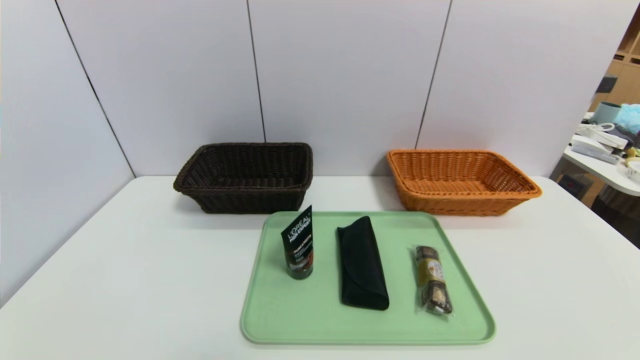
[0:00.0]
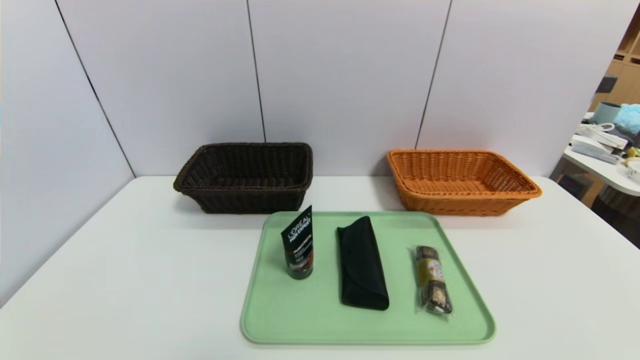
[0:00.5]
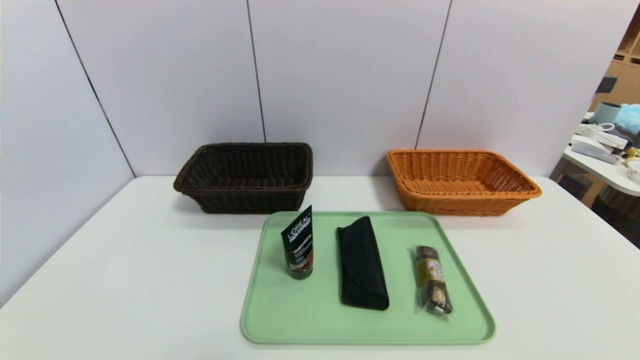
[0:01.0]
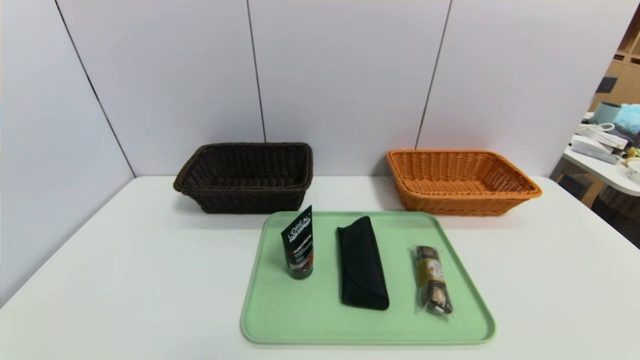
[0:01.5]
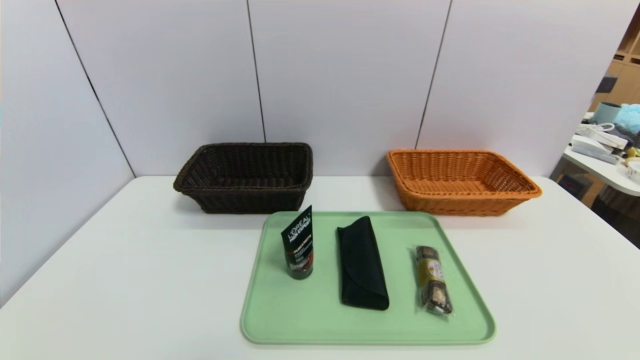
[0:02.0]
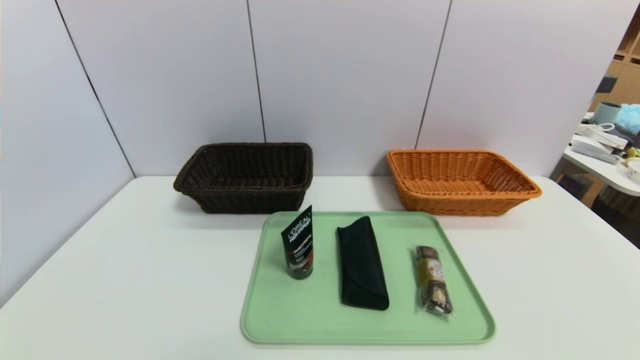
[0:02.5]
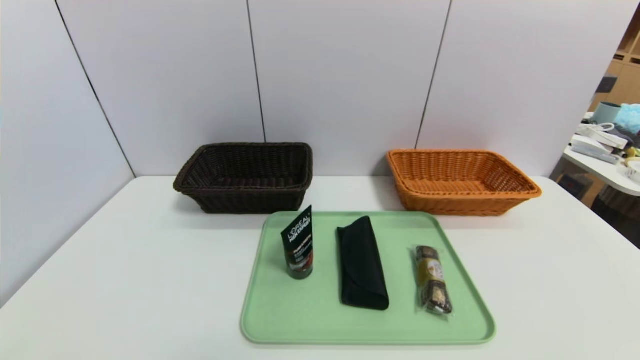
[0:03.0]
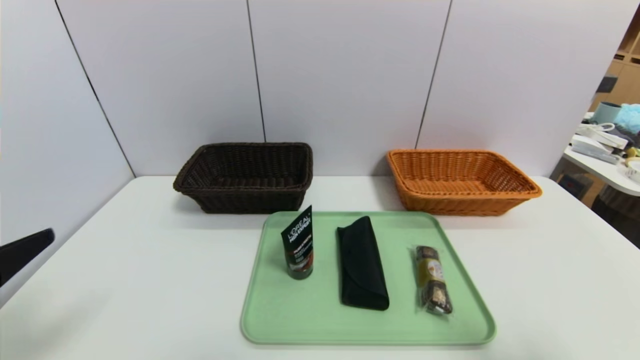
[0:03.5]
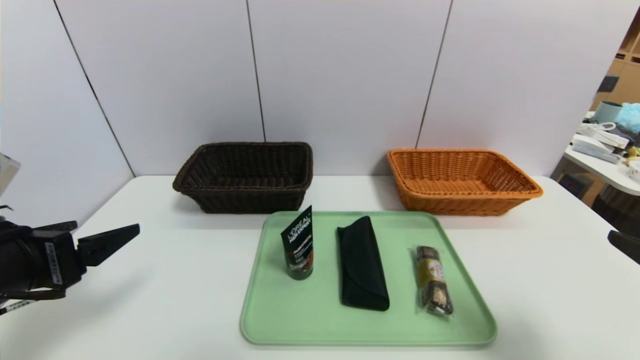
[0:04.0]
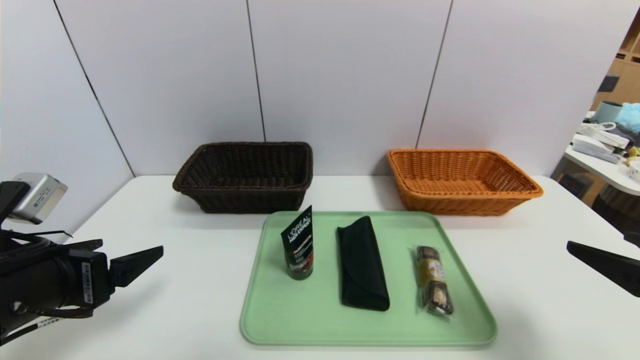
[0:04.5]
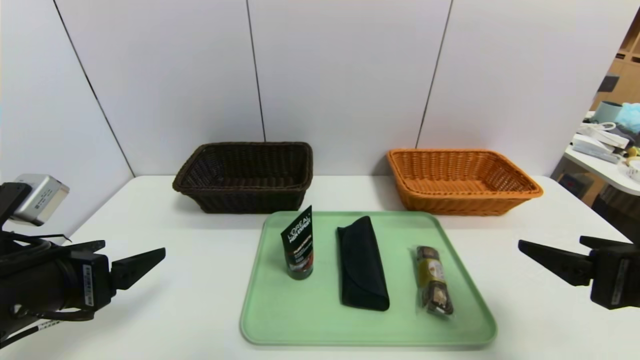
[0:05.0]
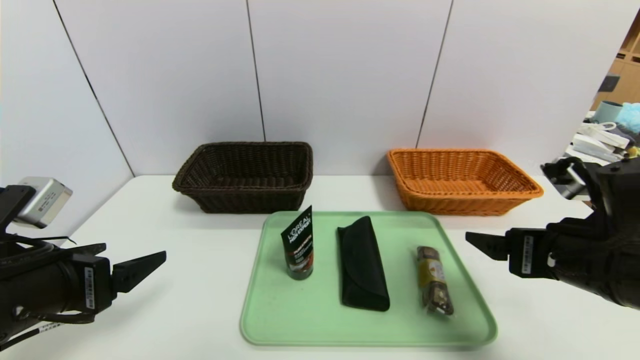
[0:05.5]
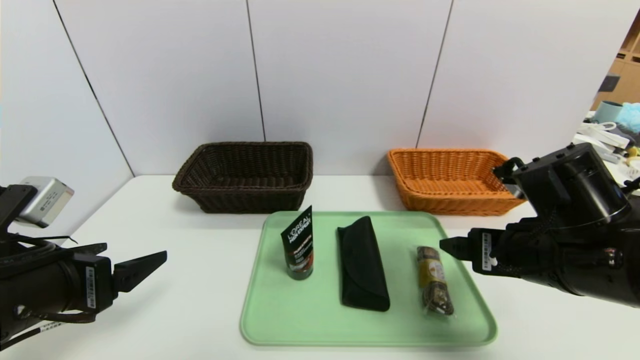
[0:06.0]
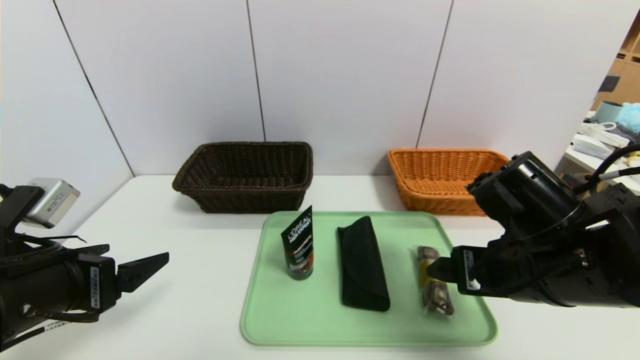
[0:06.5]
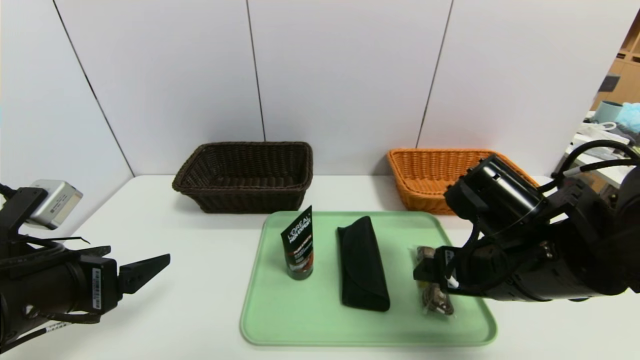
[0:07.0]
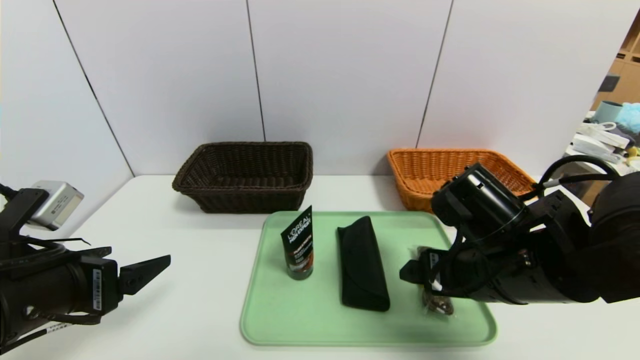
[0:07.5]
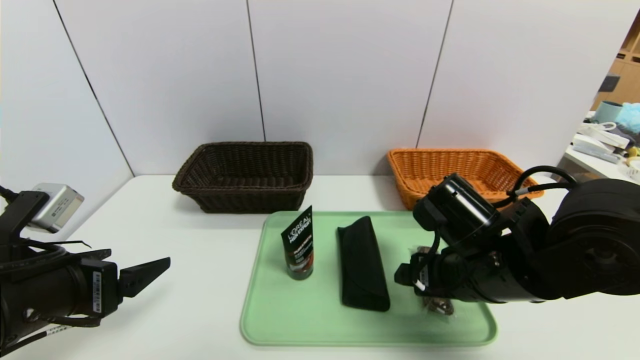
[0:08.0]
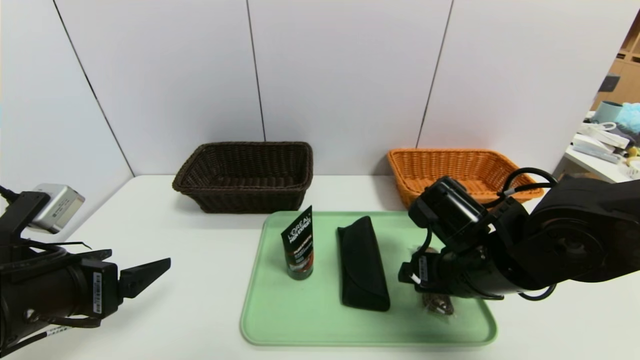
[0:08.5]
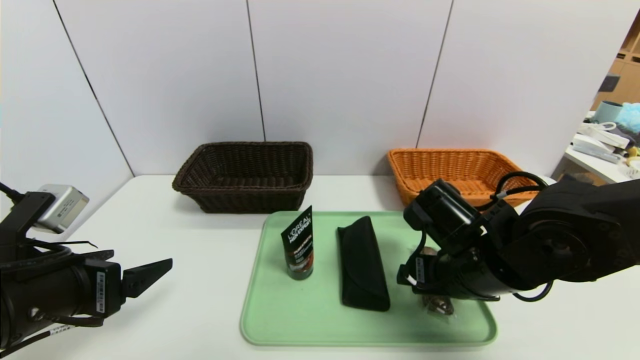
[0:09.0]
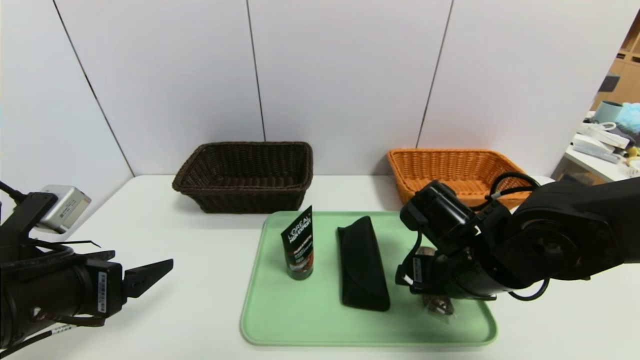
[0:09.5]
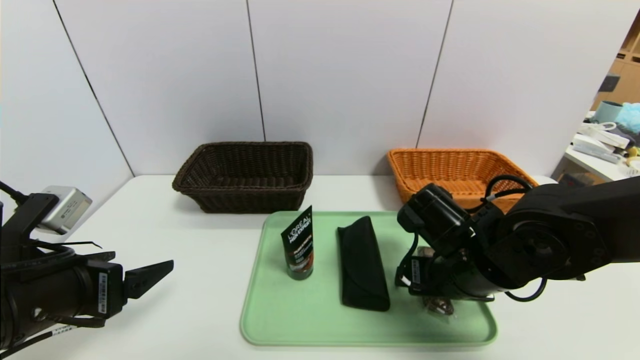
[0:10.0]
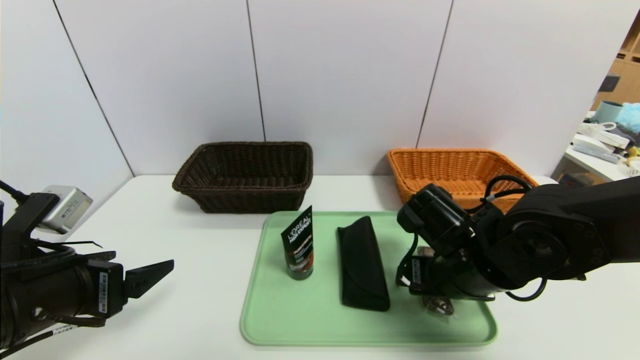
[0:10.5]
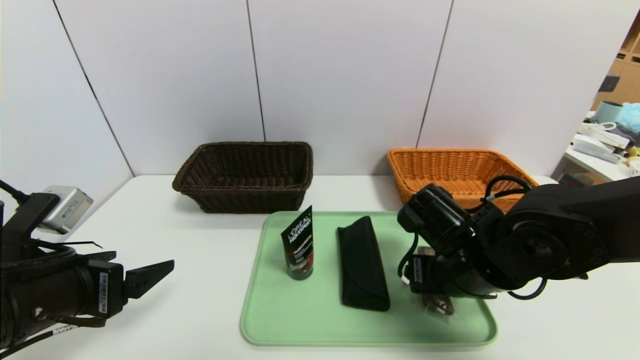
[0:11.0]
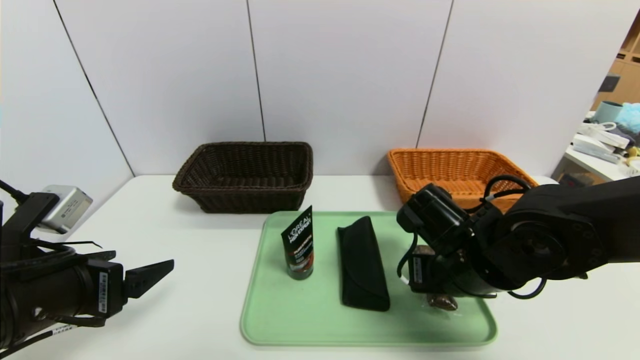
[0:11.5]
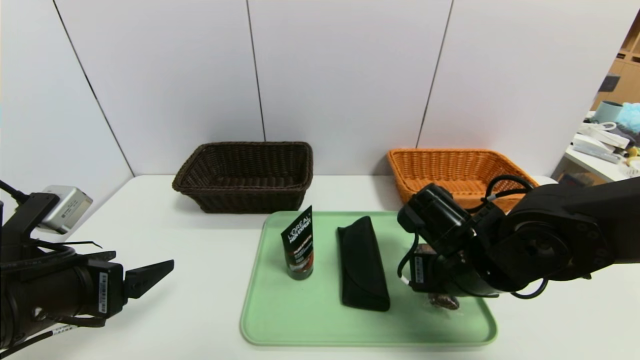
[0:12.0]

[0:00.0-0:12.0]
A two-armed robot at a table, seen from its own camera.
Task of the whole recording: place the food in the right basket with the right gripper, and place the non food items in the left basket with the left gripper.
0:02.0 to 0:04.0: The left gripper travels forward and upward by approximately 20 cm. The right gripper goes some 20 cm upward and forward.
0:04.0 to 0:06.0: The right gripper moves to the left and forward, about 15 cm.
0:06.0 to 0:08.0: The right gripper travels to the left by about 5 cm.
0:08.0 to 0:10.0: The grippers move only a little.
0:10.0 to 0:12.0: The right gripper closes.

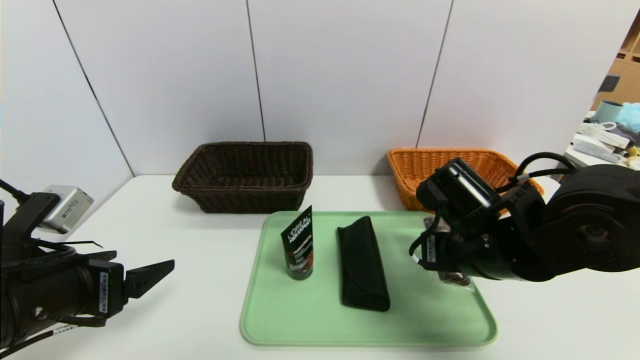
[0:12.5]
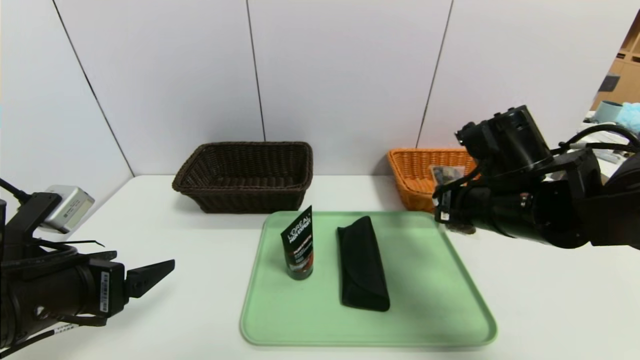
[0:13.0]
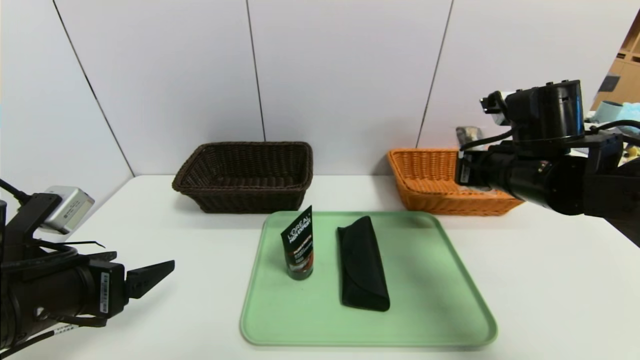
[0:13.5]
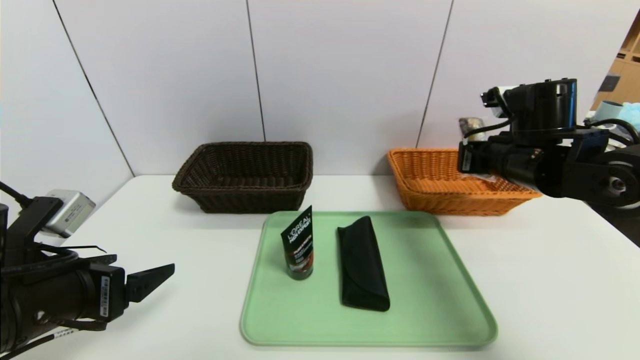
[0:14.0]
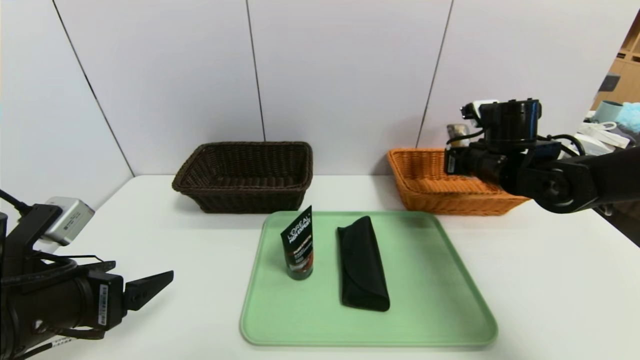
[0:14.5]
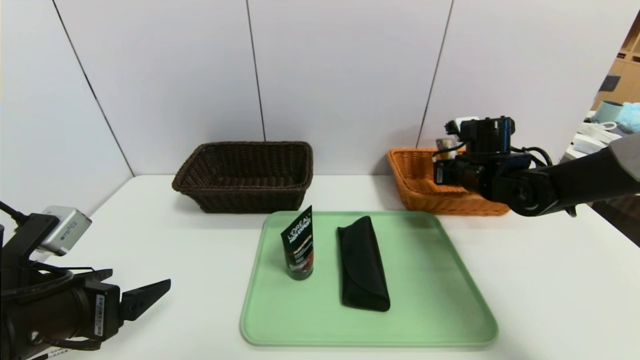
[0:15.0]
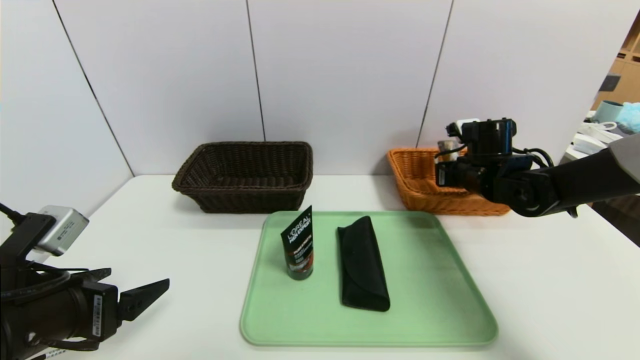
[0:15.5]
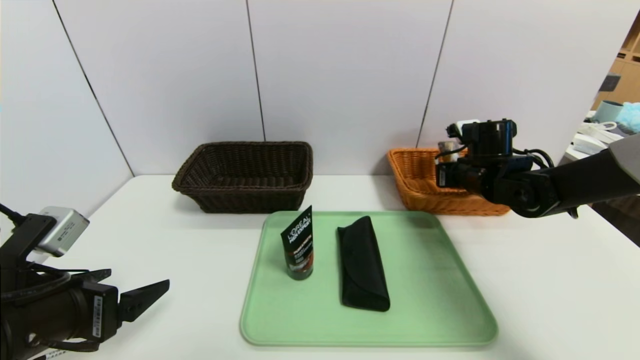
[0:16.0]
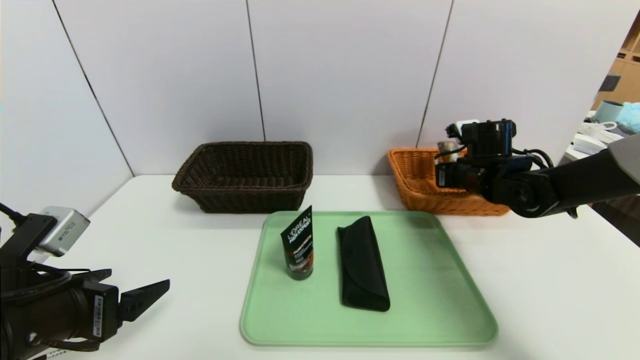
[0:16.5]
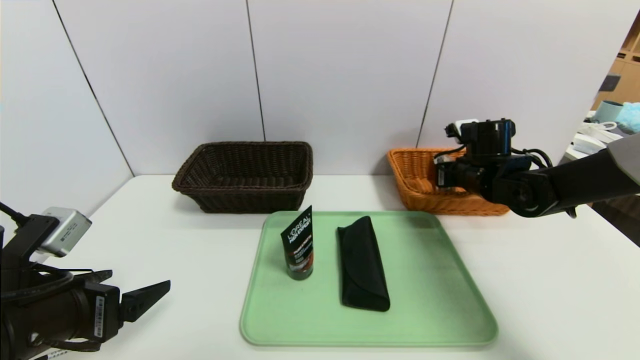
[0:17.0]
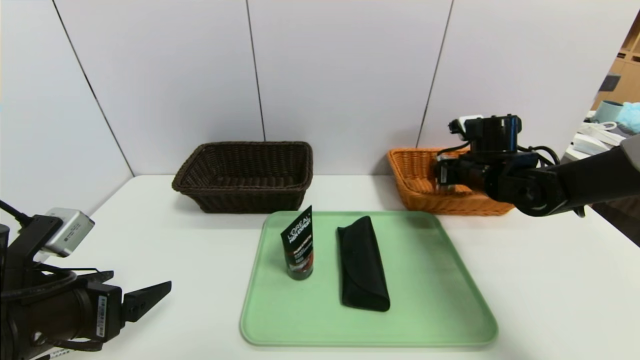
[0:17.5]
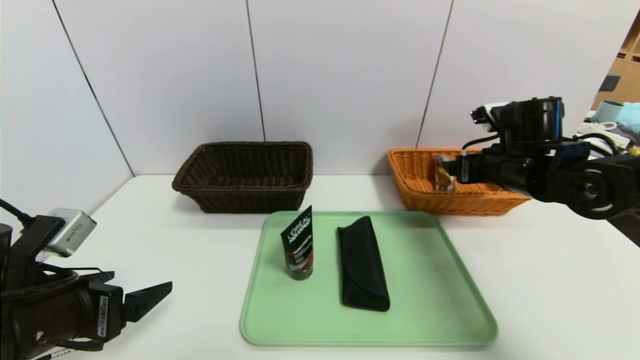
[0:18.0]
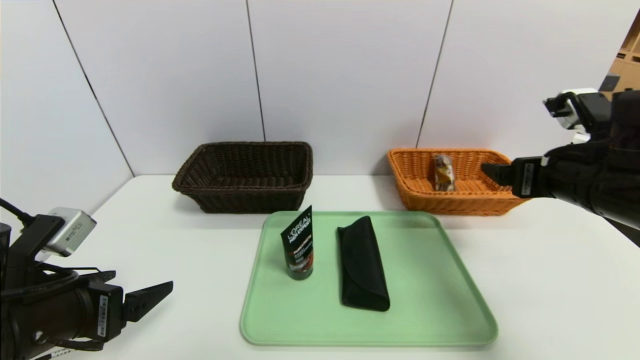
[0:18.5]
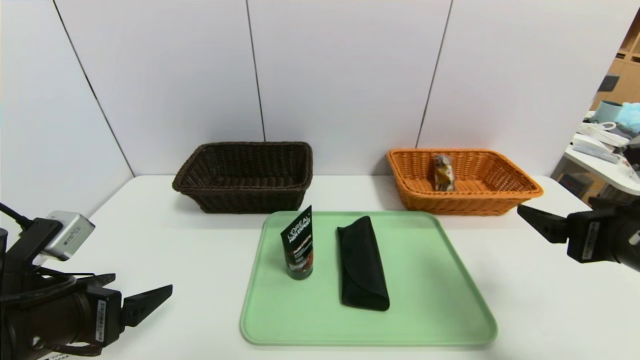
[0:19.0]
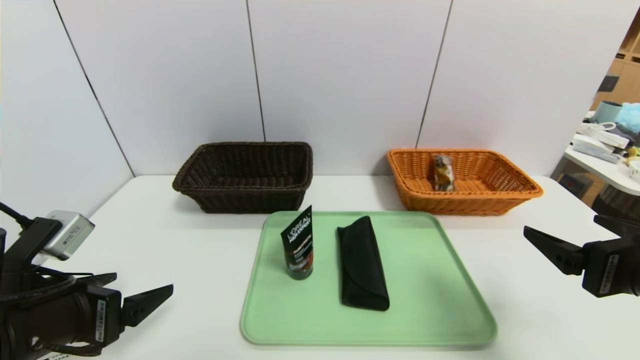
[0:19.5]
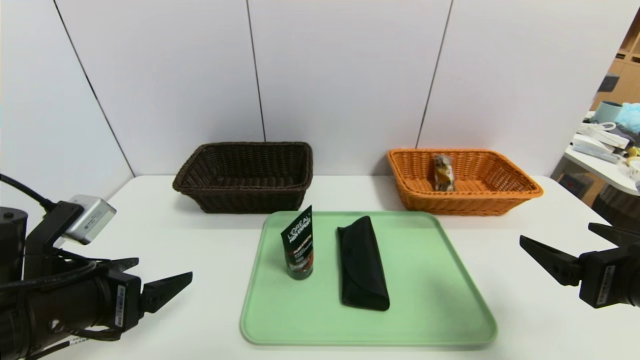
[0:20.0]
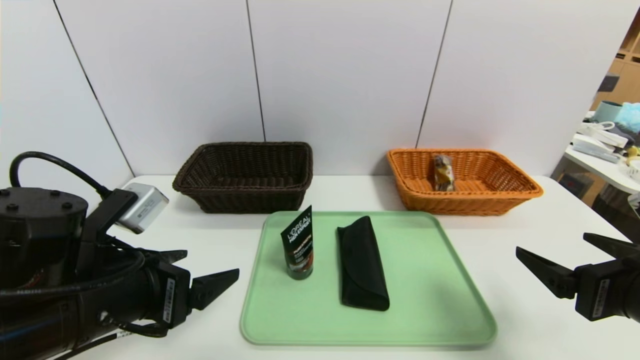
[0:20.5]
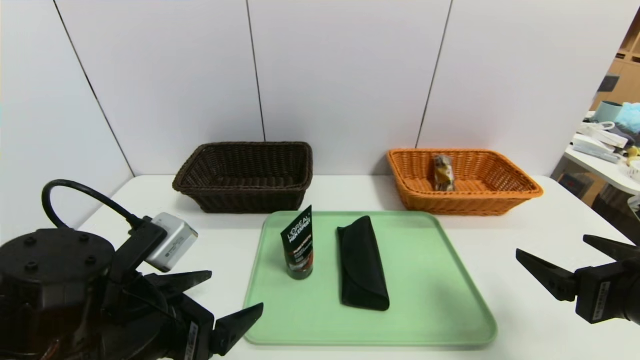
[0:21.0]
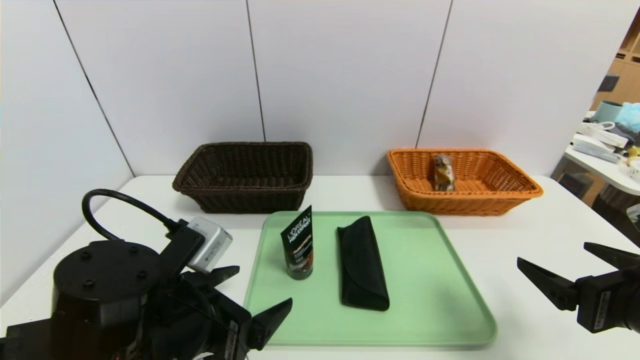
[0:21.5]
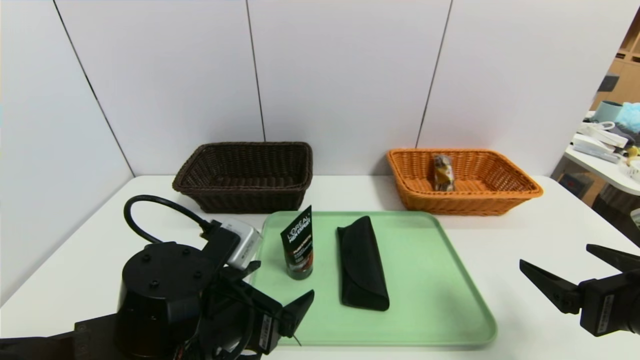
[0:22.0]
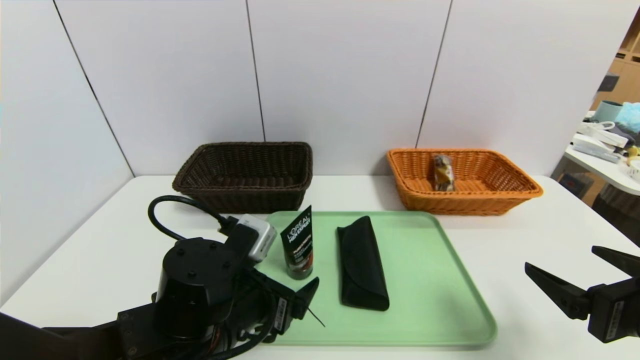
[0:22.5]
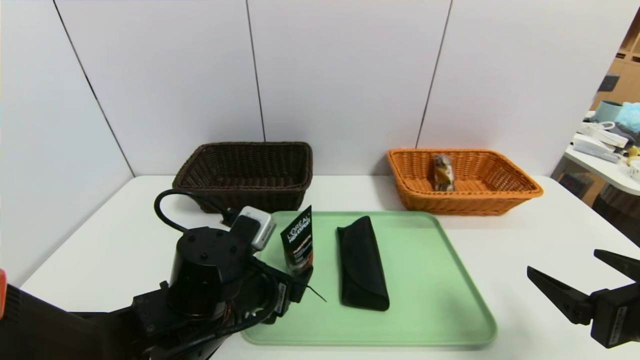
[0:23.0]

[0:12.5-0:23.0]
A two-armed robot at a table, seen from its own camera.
Task of the whole recording: place the food in the right basket with the right gripper, and place the non food items in the left basket with the left gripper.
Step, 0:12.5 to 0:17.0: Grasp the chocolate and put it in the right basket.
0:12.5 to 0:14.5: The right gripper heads forward and to the right, covering about 15 cm.
0:14.5 to 0:16.5: The grippers stay close to where they were, moving slightly.
0:16.5 to 0:19.0: The right gripper heads backward, covering some 25 cm, and opens.
0:19.0 to 0:21.0: The left gripper moves to the right, approximately 10 cm.
0:21.0 to 0:23.0: The left gripper travels to the right and forward by some 10 cm.
